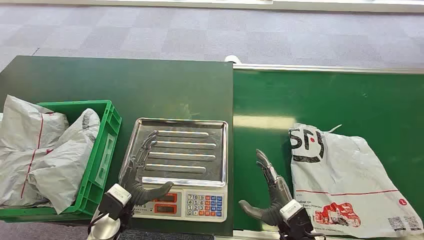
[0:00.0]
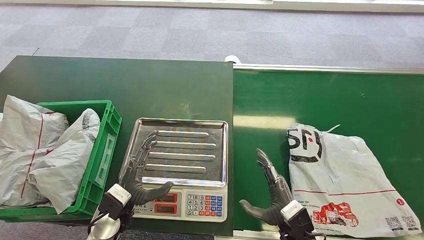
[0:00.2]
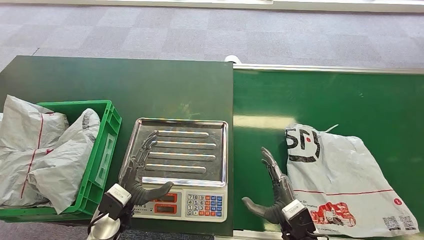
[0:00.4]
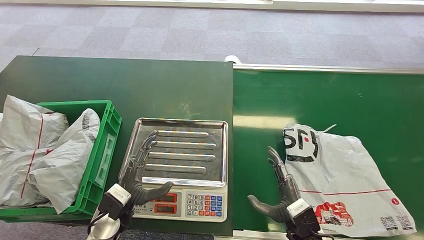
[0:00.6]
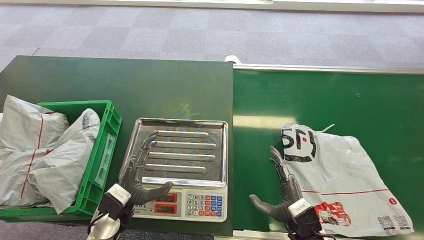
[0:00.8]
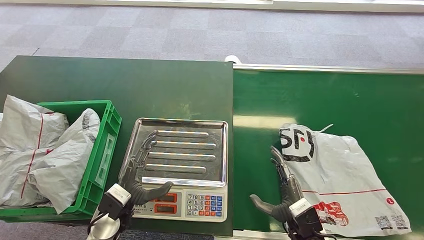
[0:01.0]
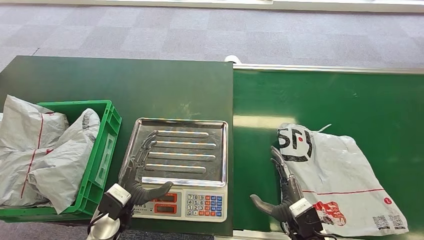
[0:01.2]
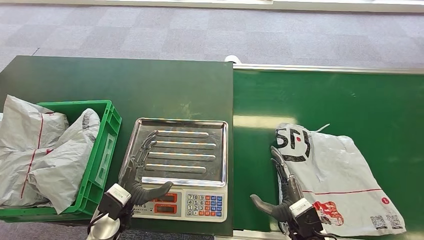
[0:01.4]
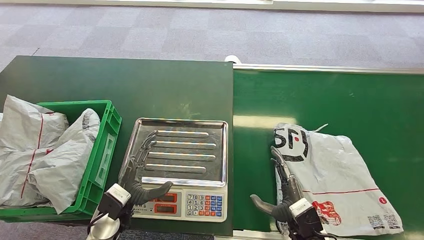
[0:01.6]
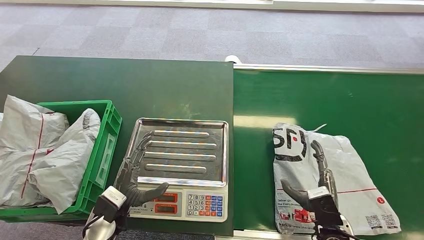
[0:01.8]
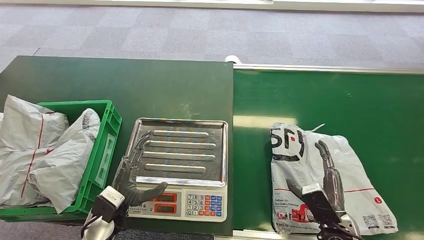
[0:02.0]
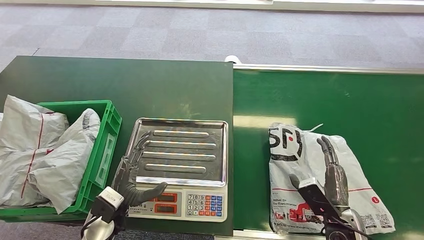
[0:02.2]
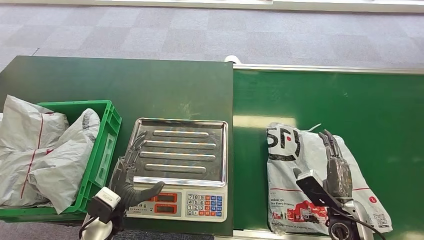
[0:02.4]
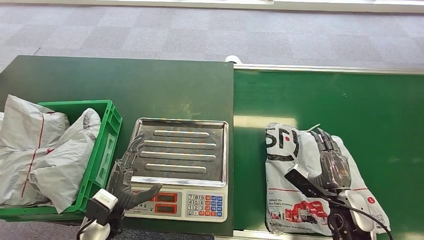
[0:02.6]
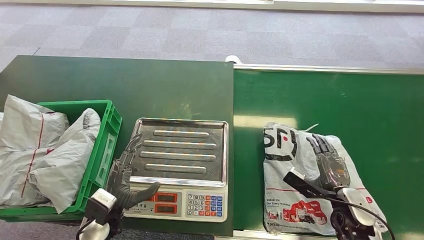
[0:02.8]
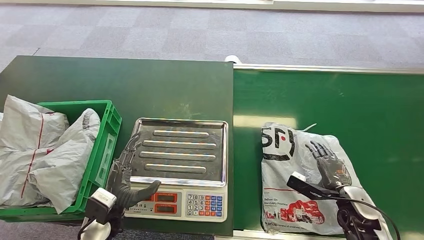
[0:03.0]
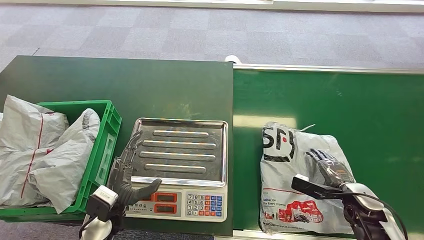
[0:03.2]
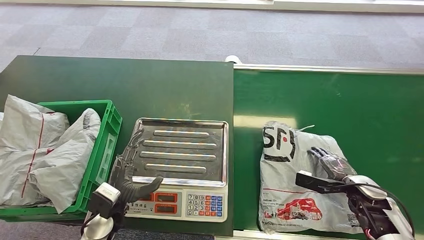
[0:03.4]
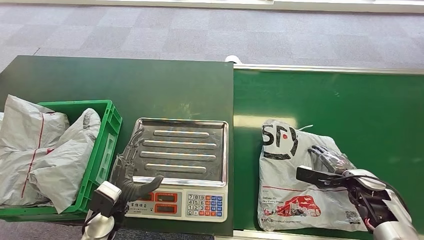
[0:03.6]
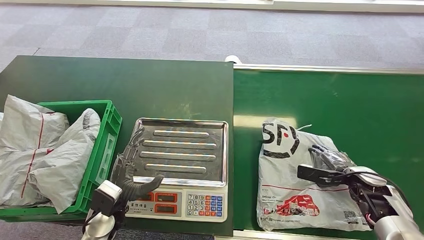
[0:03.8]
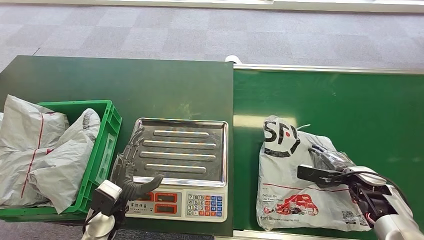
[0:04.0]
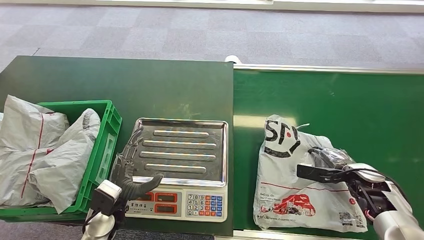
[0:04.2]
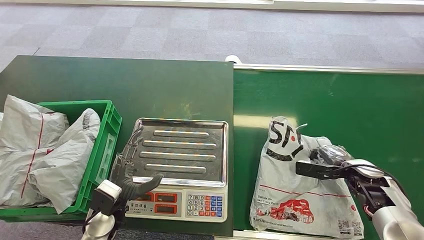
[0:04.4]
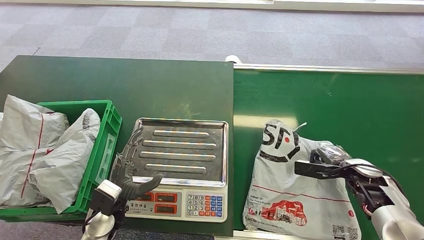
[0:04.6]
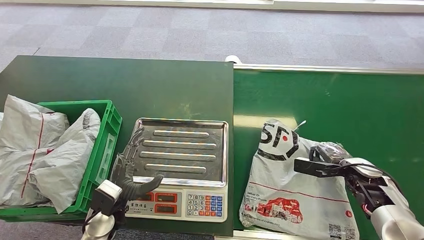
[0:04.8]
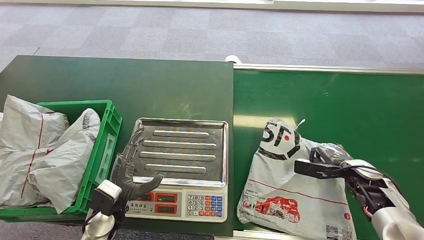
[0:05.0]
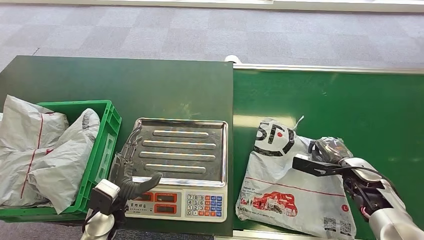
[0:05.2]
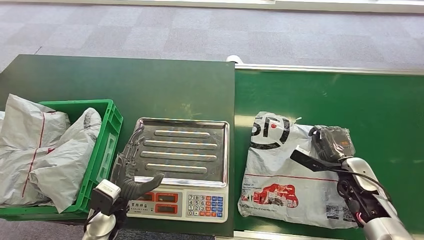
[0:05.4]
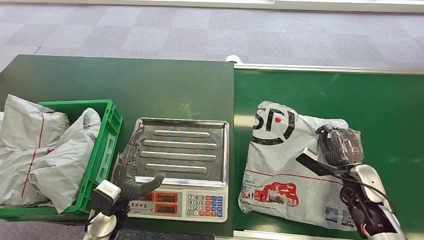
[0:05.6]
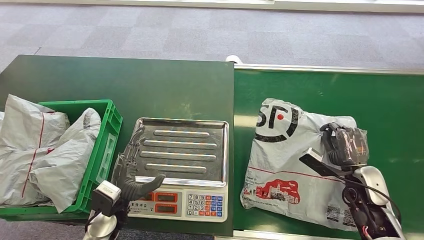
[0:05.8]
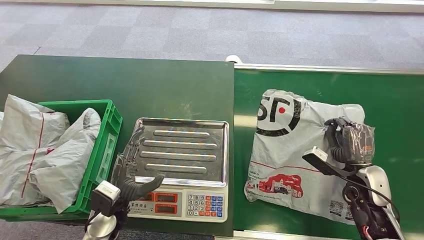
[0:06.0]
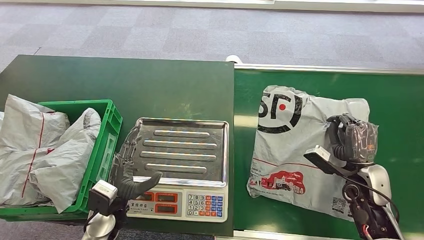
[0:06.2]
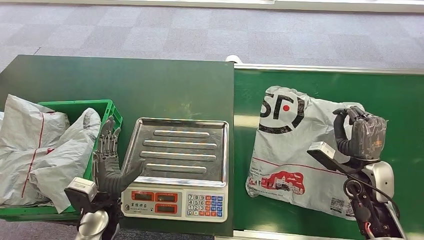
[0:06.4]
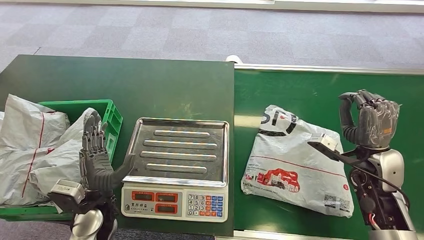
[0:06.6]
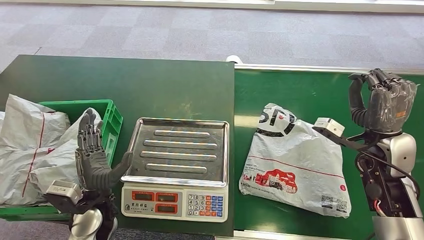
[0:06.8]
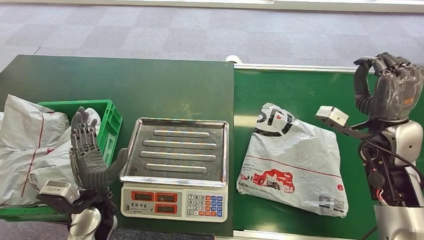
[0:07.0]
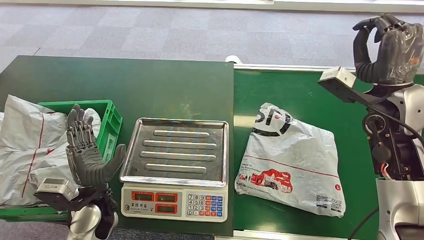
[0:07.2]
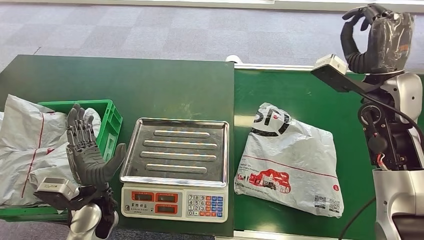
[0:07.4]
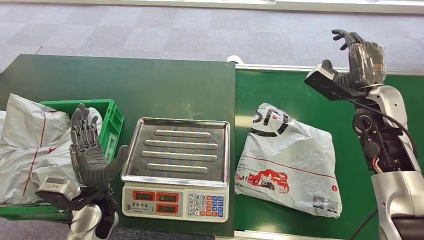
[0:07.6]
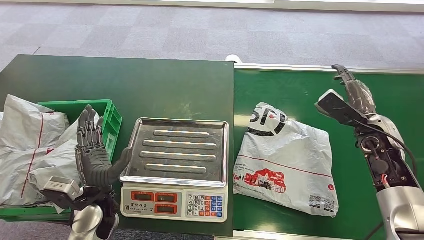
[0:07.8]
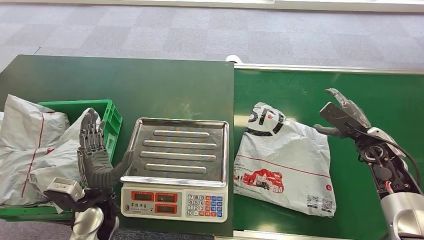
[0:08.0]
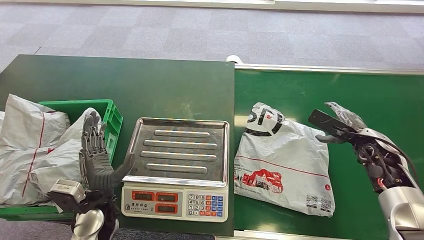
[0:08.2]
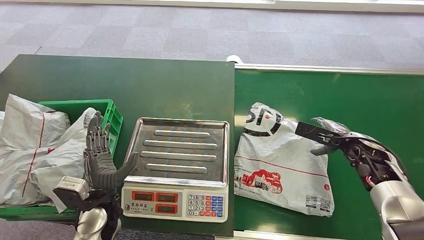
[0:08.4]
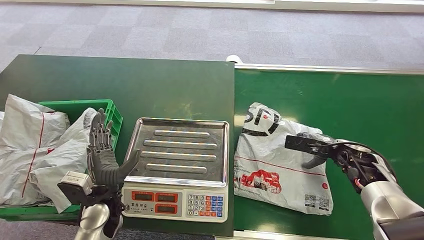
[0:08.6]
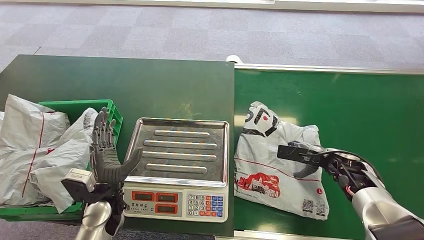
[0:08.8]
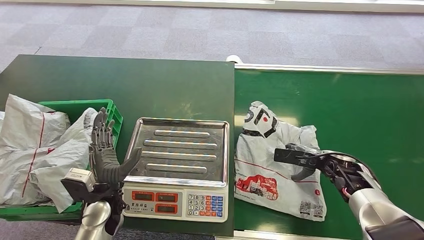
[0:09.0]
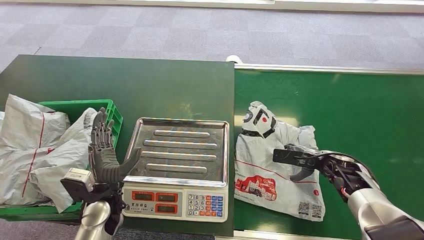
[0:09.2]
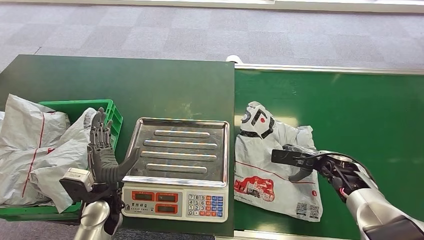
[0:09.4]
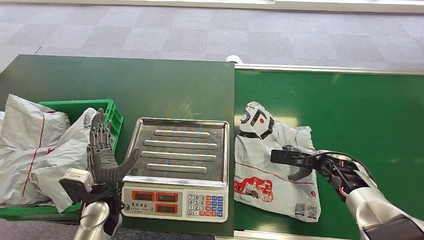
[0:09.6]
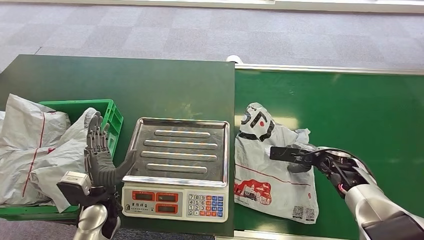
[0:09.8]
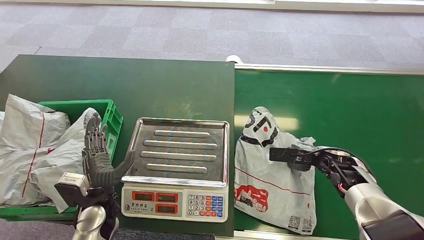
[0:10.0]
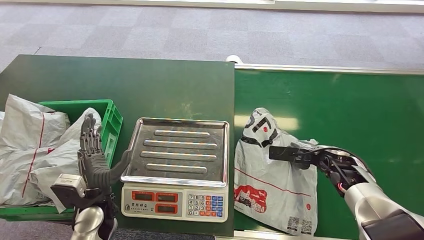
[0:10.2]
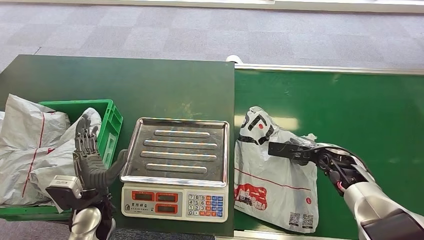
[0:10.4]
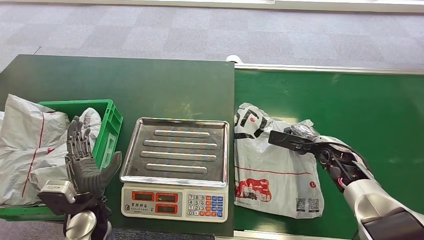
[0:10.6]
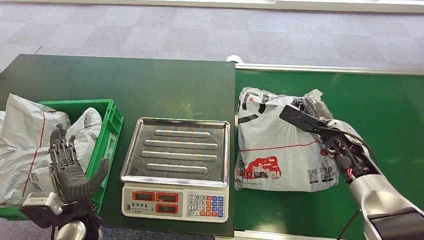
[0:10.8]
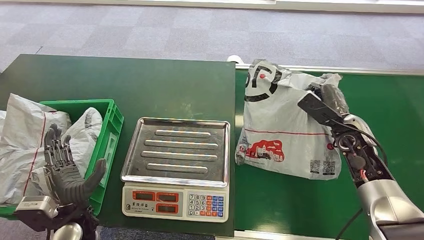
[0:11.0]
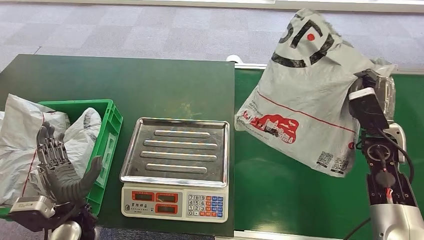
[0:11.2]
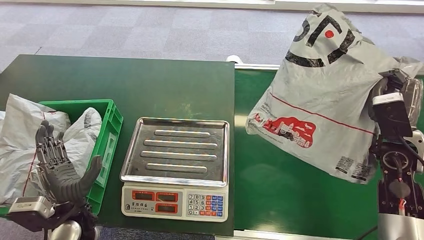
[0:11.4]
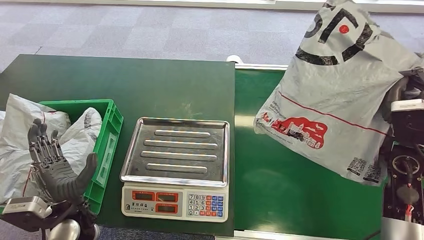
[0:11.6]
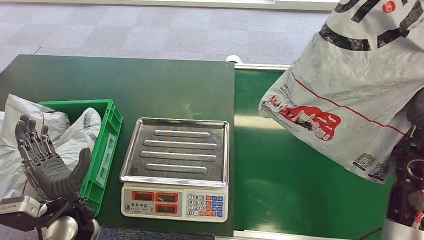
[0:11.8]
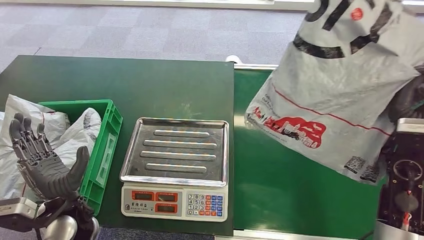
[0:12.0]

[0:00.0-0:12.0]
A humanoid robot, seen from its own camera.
Step, 0:00.0 to 0:05.6: Pick up the package from the conveyor belt.
0:01.6 to 0:03.0: The right hand goes roughly 20 cm to the right and forward.
0:03.0 to 0:04.4: The right hand travels forward and to the right by about 10 cm.
0:04.4 to 0:06.0: The right hand moves to the left, some 5 cm.
0:09.0 to 0:10.4: The hands move only a little.

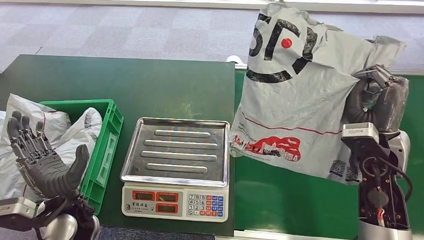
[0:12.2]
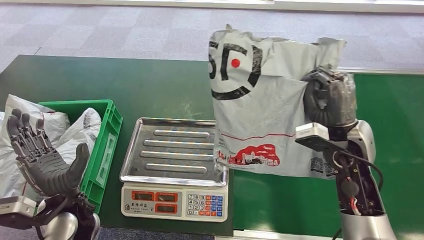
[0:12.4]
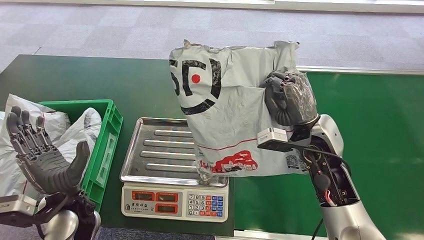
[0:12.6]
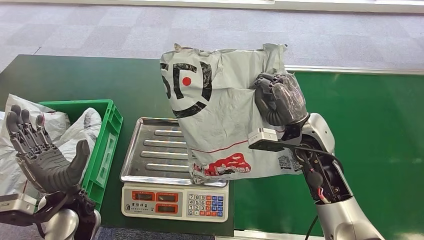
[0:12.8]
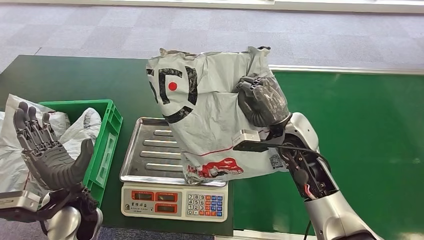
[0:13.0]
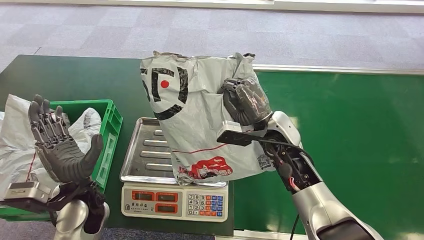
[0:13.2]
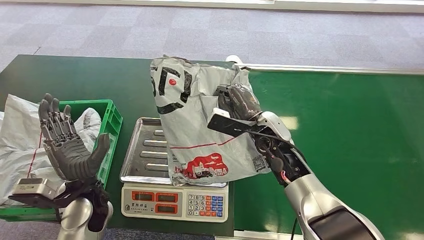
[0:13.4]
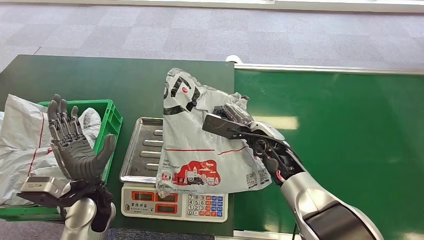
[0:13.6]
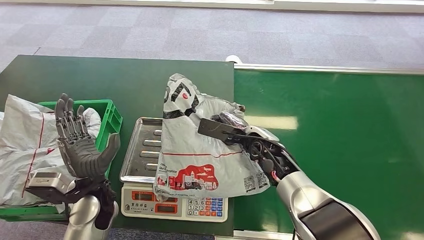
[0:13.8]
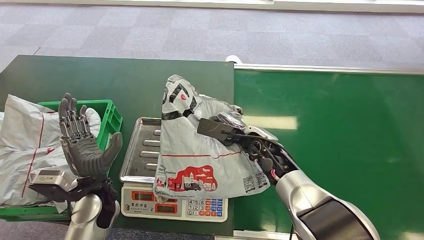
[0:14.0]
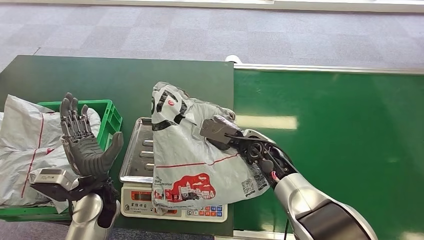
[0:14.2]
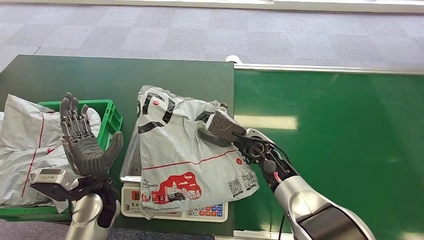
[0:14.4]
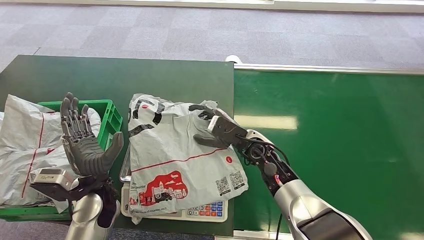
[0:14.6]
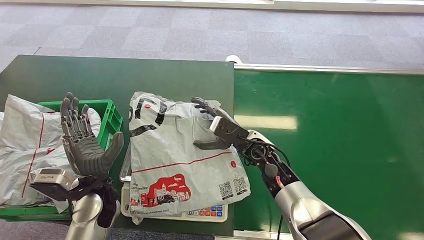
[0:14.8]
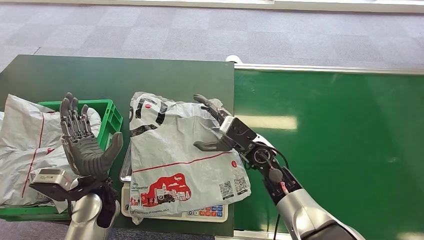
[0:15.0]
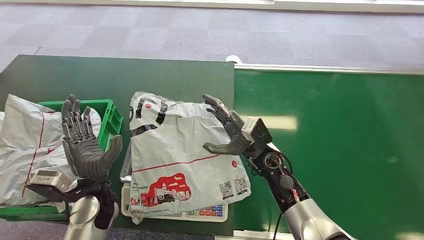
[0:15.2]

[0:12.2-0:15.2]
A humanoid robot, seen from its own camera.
Step, 0:12.2 to 0:15.0: Place the package onto the inbound machine.

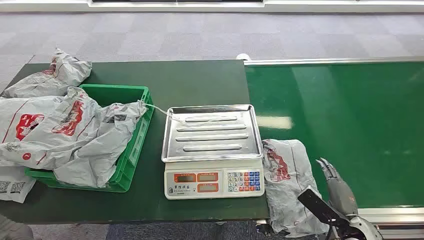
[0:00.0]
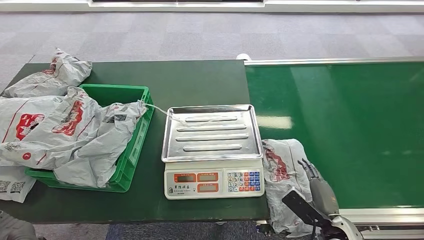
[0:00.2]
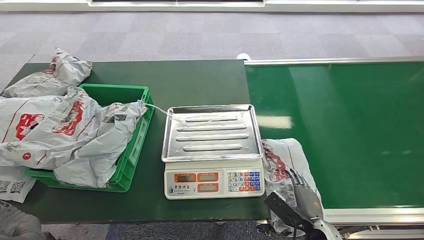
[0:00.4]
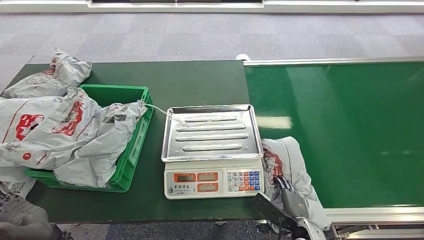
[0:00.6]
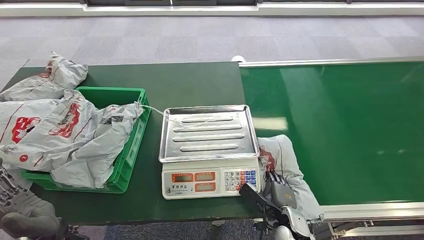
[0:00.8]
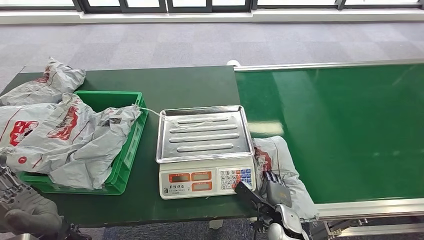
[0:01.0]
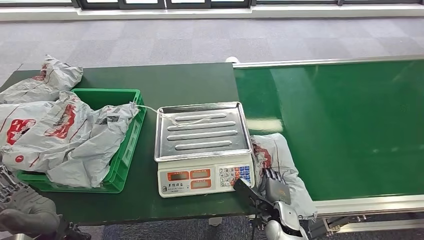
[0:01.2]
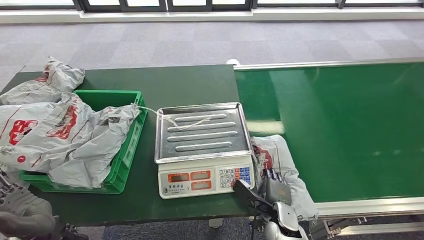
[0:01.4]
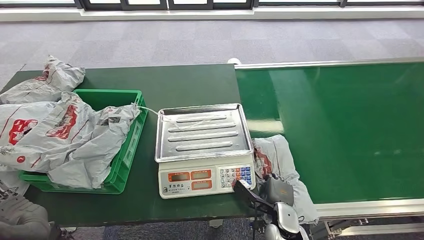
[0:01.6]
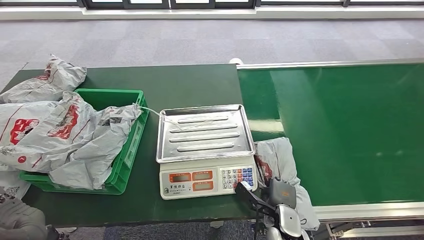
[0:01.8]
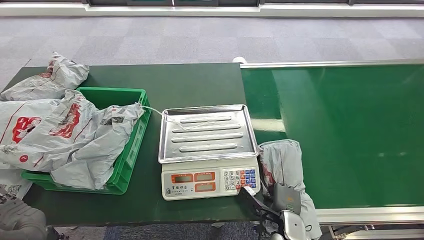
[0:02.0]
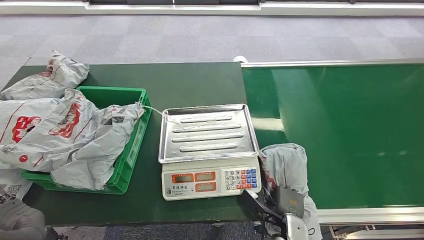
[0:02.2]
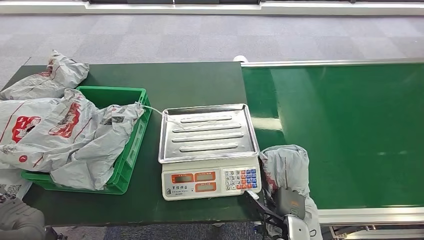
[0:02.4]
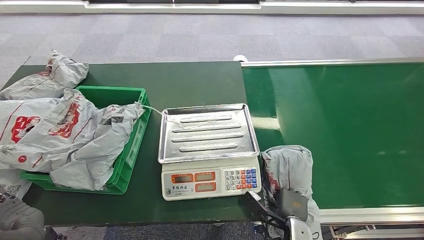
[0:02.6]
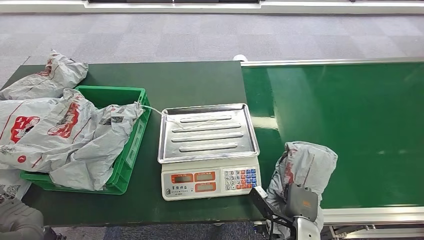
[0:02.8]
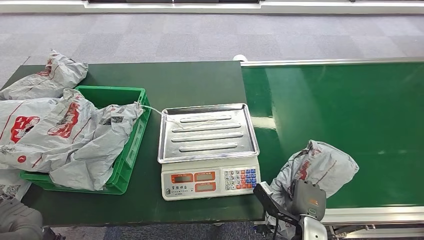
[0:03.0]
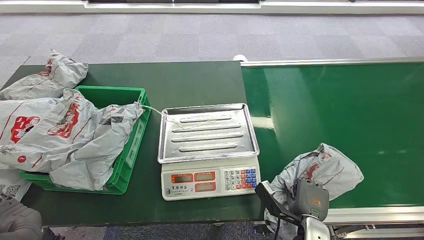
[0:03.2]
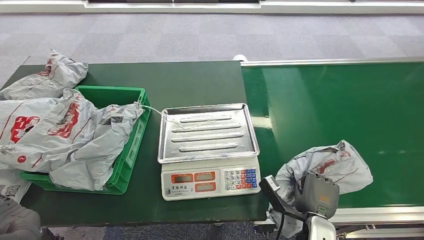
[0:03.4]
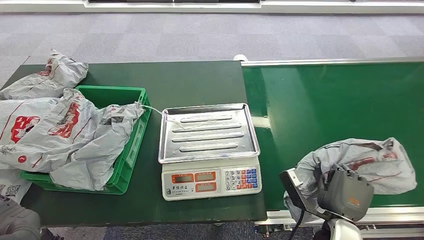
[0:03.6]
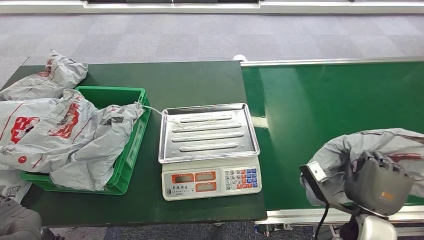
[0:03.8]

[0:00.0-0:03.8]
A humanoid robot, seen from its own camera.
0:02.6 to 0:03.8: The right hand heads upward and to the right, covering some 20 cm.
